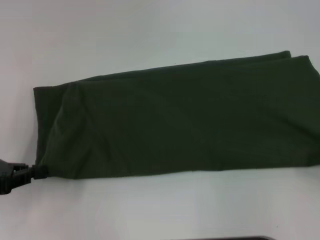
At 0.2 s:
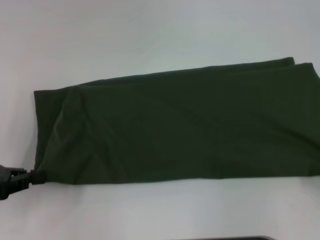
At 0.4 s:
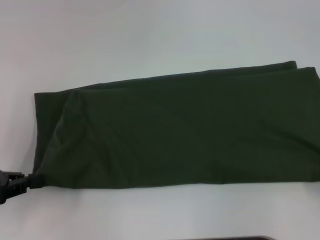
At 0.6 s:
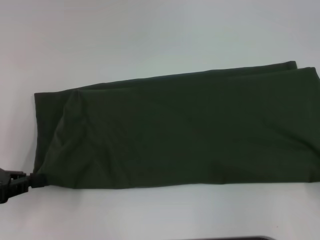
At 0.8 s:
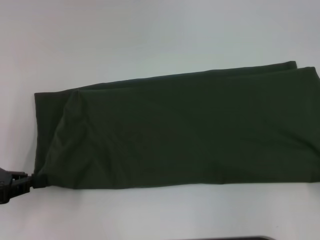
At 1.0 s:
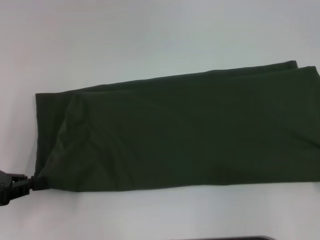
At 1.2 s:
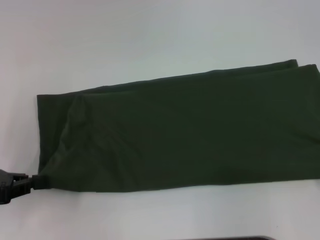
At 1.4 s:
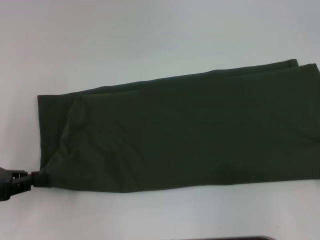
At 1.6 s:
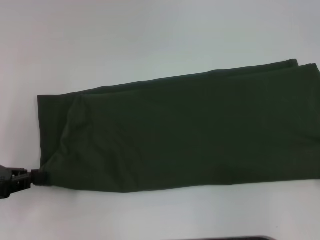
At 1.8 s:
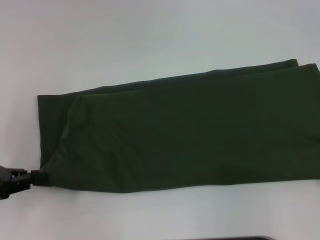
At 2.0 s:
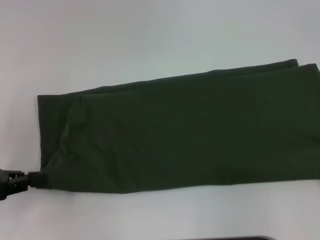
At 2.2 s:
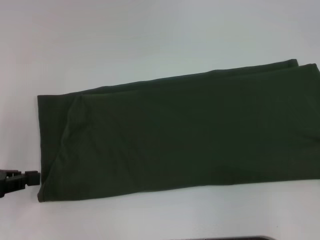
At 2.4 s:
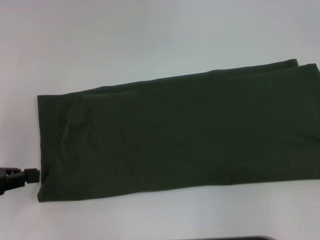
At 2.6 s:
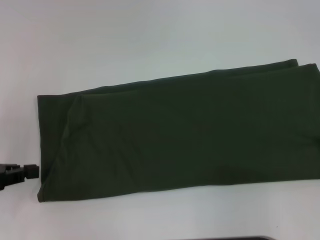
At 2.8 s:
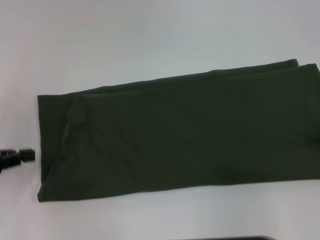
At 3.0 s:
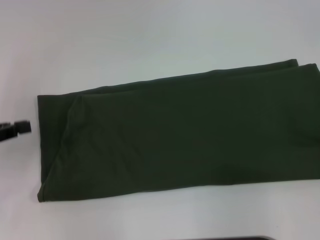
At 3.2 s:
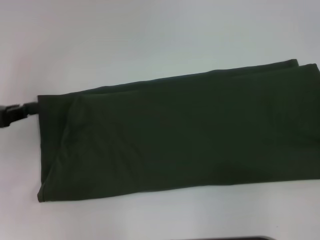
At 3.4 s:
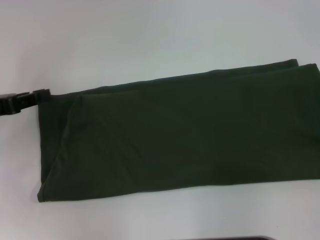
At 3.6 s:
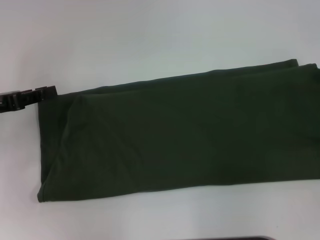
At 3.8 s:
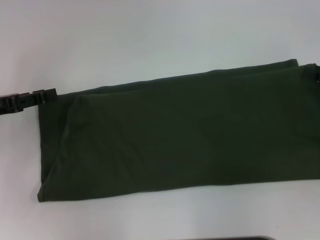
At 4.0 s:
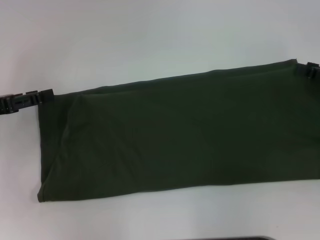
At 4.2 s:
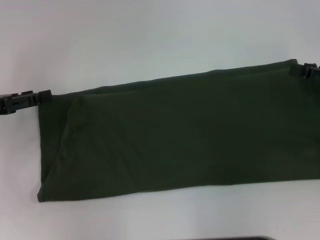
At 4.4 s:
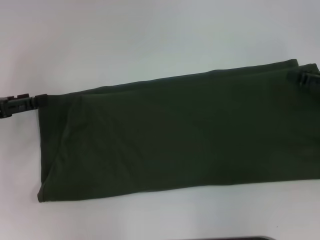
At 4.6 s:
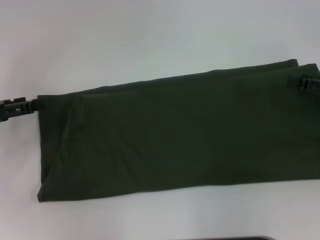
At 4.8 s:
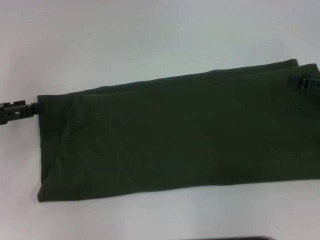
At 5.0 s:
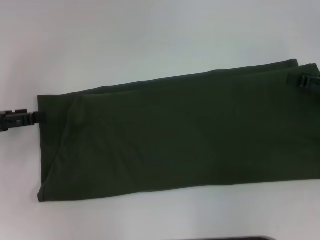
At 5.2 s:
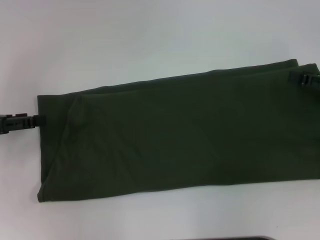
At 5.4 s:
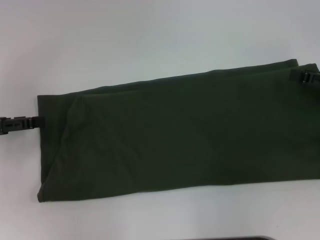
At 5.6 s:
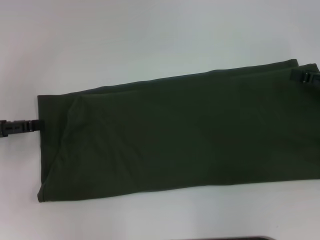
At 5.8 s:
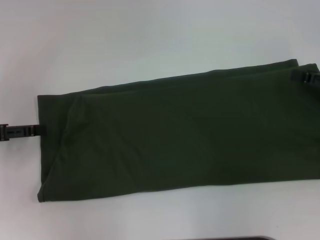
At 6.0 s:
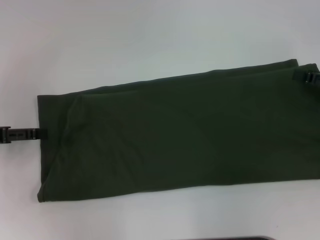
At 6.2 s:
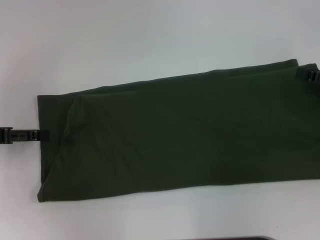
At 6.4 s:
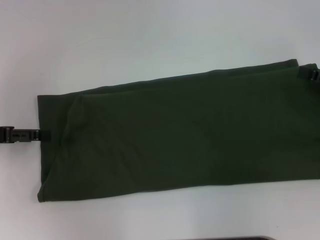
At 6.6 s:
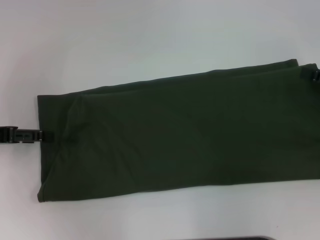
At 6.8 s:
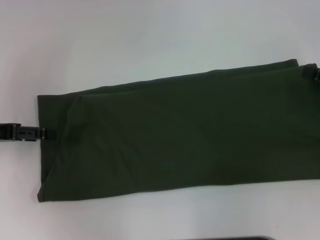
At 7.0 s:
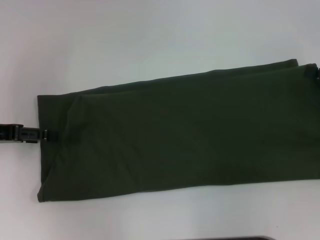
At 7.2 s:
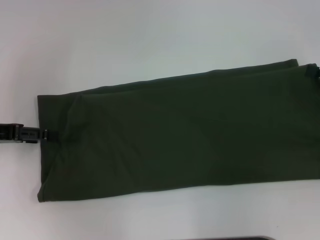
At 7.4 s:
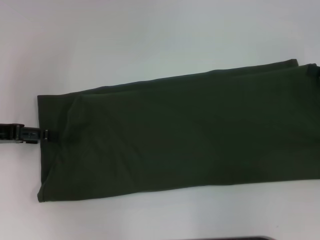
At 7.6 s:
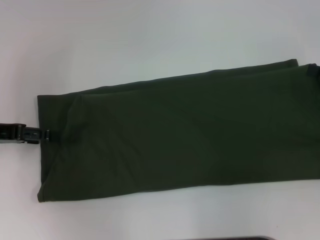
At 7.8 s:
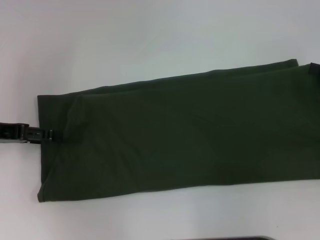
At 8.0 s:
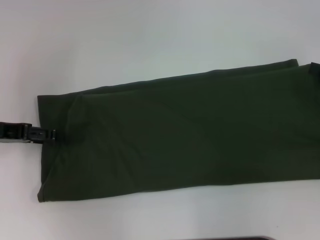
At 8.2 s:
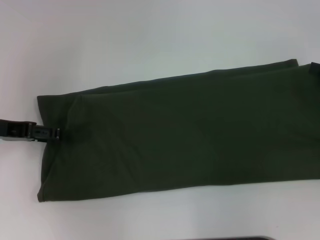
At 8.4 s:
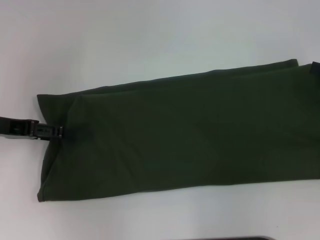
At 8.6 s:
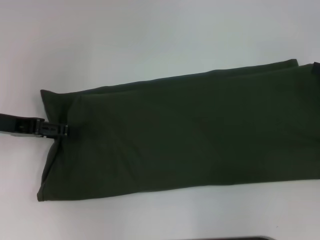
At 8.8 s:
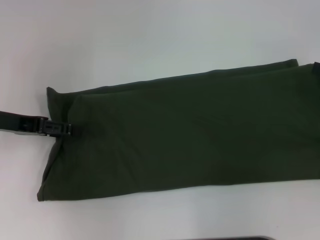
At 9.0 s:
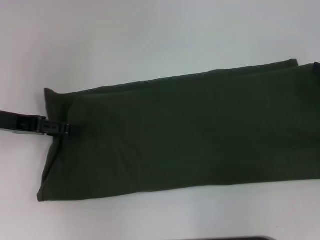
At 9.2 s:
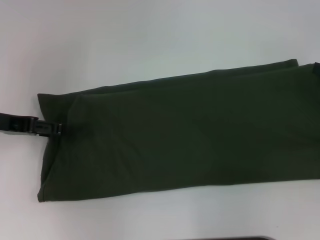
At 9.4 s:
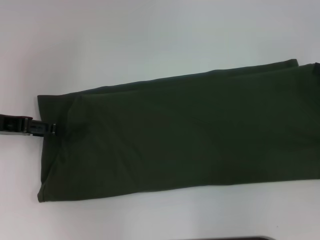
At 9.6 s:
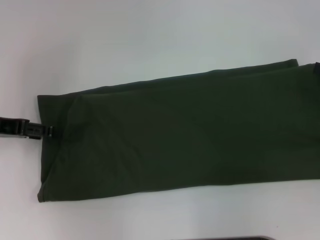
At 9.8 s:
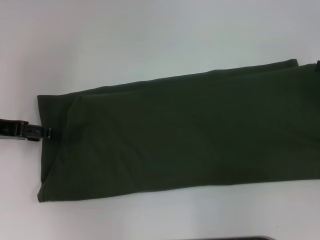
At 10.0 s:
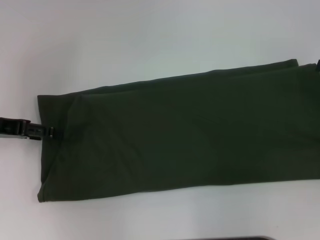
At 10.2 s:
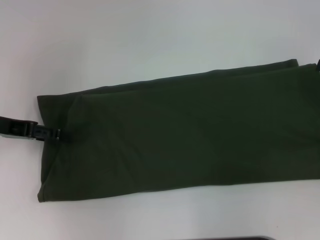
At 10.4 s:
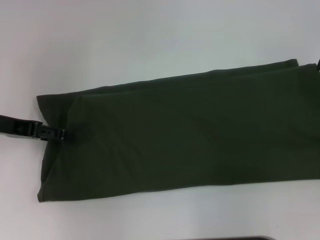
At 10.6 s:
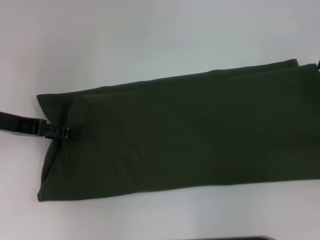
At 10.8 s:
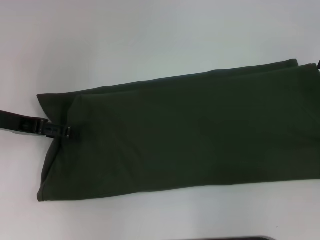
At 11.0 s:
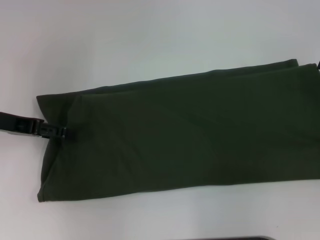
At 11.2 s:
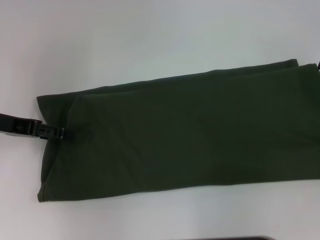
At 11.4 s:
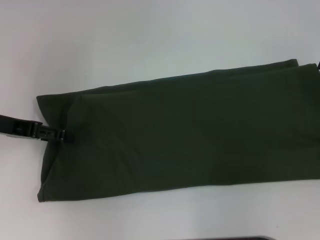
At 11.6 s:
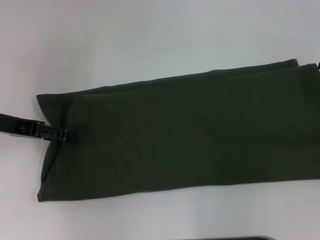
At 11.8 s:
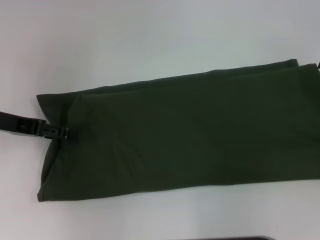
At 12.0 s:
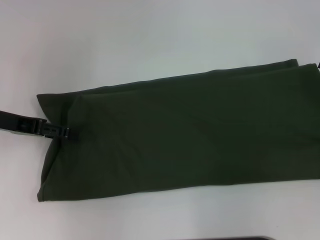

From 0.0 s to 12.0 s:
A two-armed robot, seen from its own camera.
Step, from 0.0 s to 3.2 s: Pull the clothes with your left hand.
Step, from 0.0 s to 3.2 s: Pull the clothes with your right hand.
From 0.0 s to 1.6 s: The grippers make only small movements.
From 3.0 s to 4.4 s: The left gripper opens.
From 4.4 s to 6.0 s: The grippers stay close to where they were, moving slightly.
From 7.6 s to 10.4 s: The grippers make only small movements.
From 10.4 s to 12.0 s: Both grippers stay about where they are.

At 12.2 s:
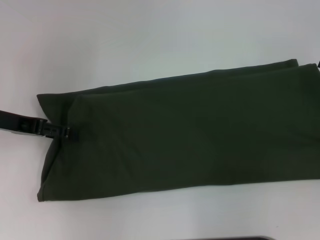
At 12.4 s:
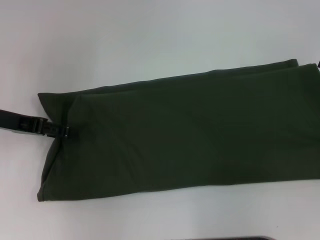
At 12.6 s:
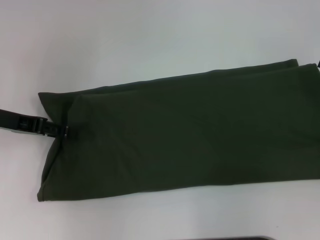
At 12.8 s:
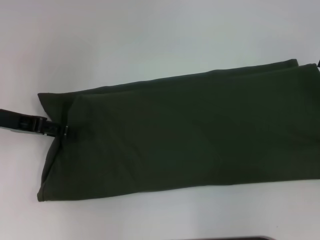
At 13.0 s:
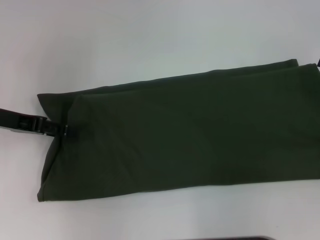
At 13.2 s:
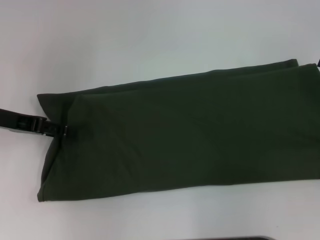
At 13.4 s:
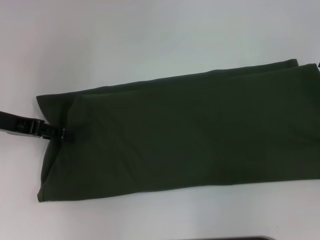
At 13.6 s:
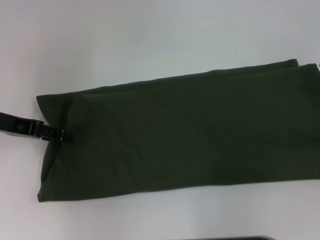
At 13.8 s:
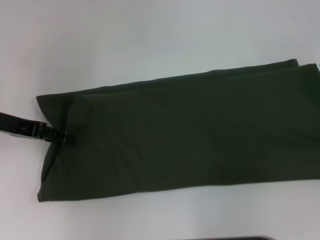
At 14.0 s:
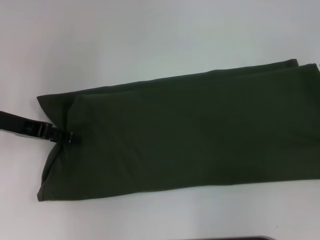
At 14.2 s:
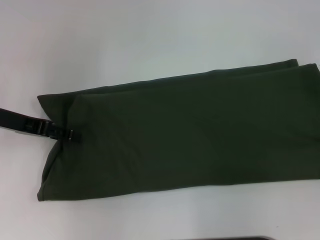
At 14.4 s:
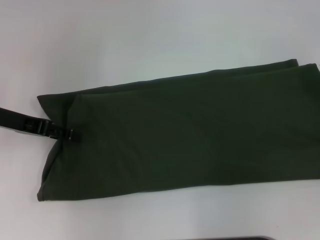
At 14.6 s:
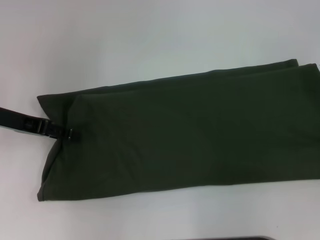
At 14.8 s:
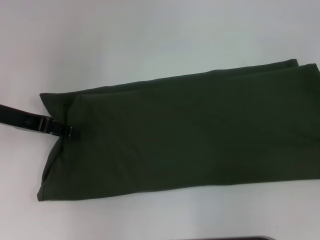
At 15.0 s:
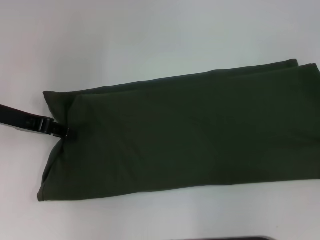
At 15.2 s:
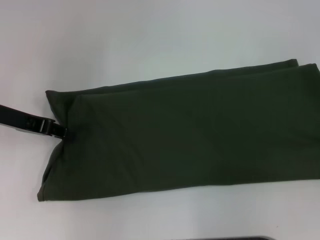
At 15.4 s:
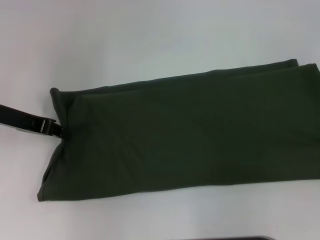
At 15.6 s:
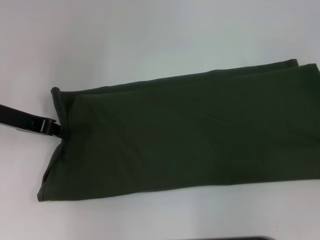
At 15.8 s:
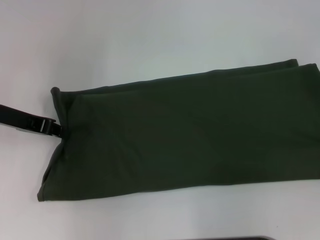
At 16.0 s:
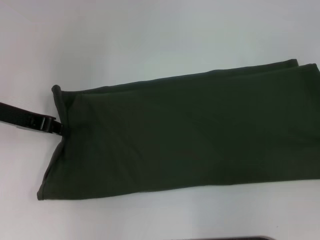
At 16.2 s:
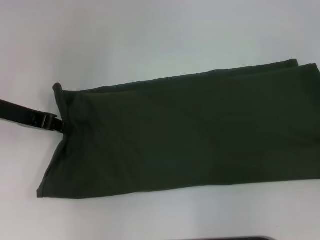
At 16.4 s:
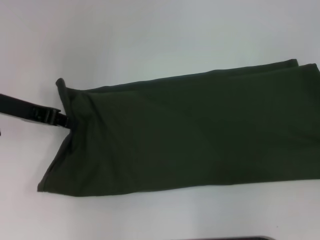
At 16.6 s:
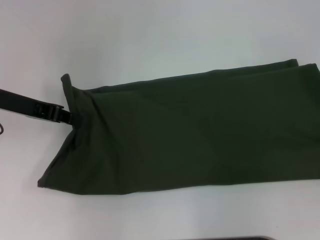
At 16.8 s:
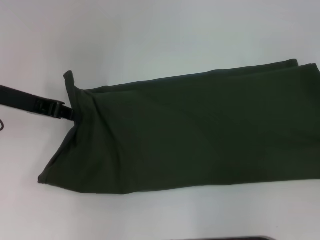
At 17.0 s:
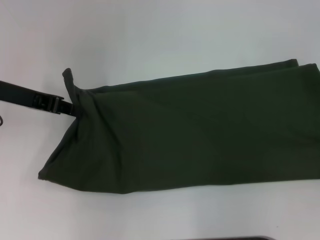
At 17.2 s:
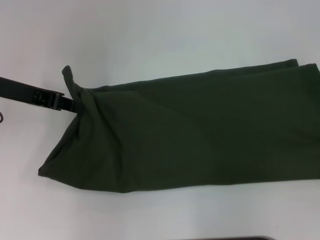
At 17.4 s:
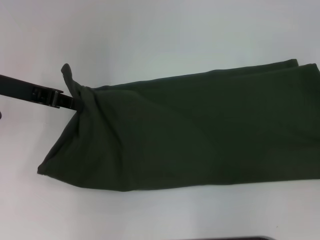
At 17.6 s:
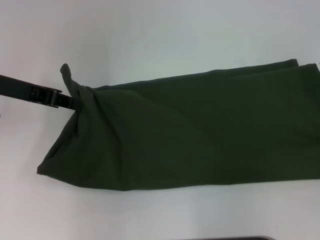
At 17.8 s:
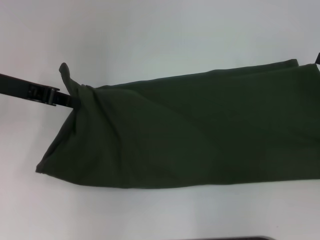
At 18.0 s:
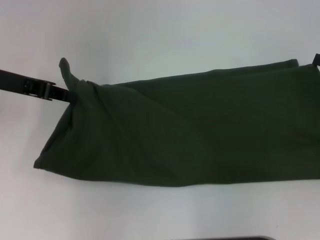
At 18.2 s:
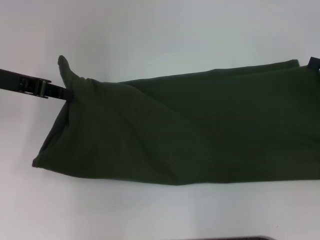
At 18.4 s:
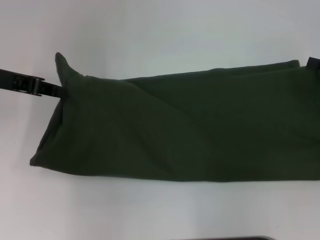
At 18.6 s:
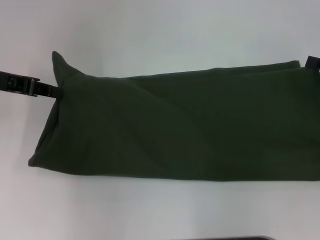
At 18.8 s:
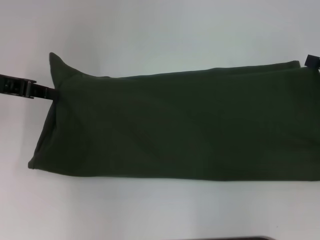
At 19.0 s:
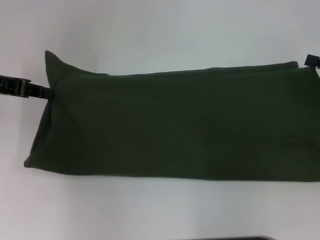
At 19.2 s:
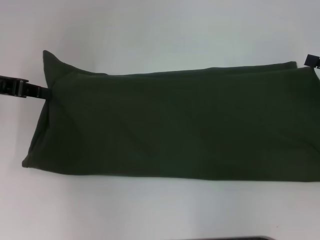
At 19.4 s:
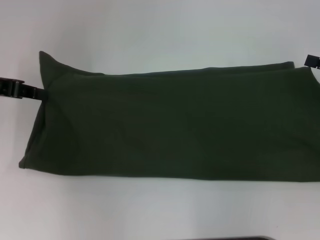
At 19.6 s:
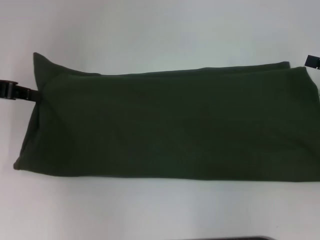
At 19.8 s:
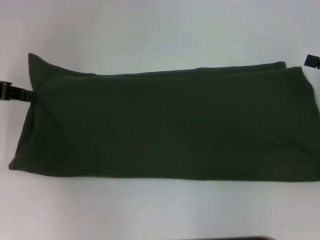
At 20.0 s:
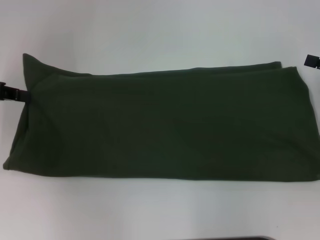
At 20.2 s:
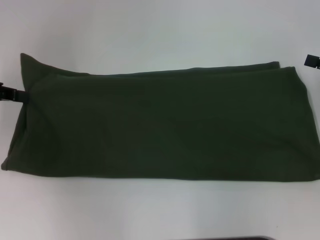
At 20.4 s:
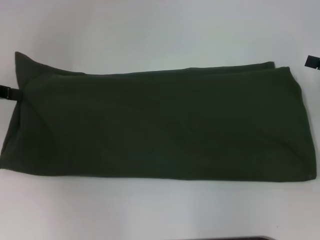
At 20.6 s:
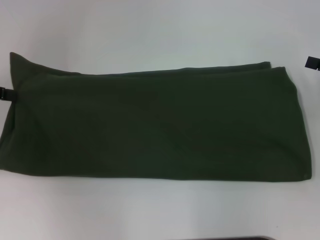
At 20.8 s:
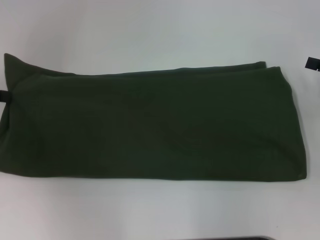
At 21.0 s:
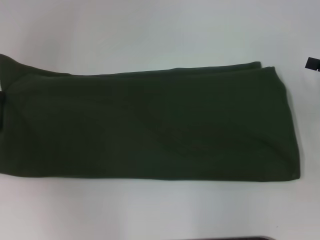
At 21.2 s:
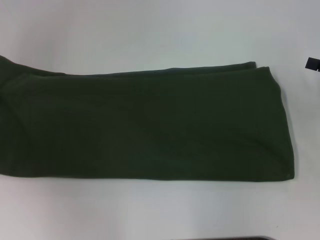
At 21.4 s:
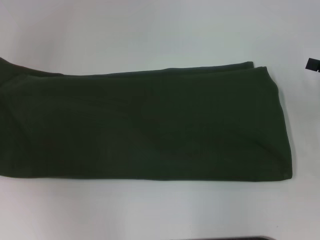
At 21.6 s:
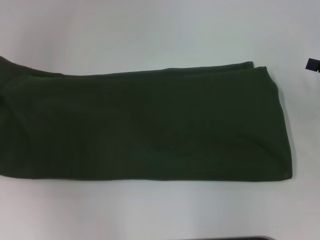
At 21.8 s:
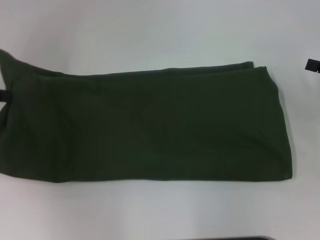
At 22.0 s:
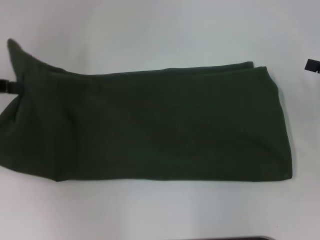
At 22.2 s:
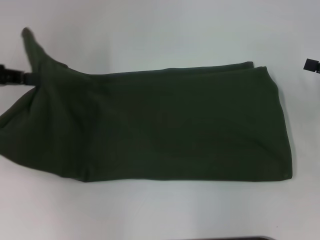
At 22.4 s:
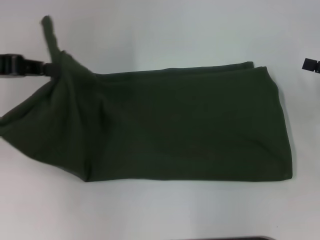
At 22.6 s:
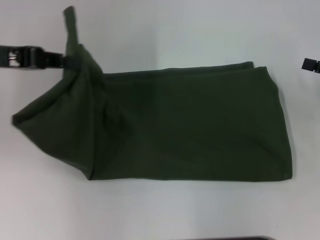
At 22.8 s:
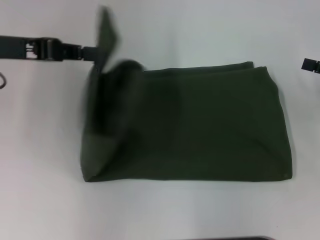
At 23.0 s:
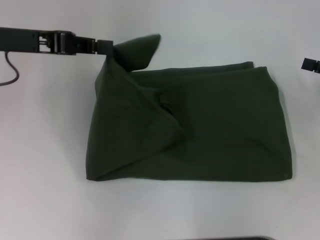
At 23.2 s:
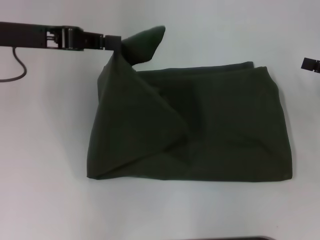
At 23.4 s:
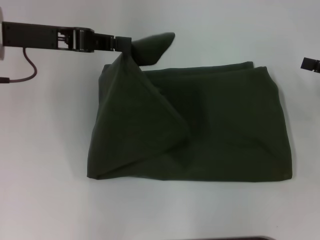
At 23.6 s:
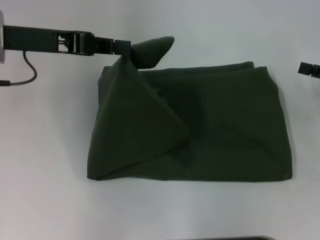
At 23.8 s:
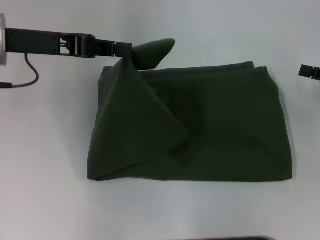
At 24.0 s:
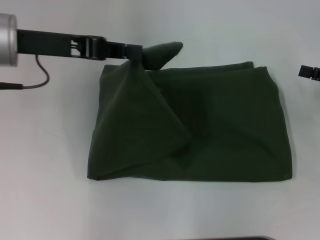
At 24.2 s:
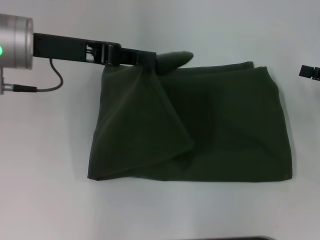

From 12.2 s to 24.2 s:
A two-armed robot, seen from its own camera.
From 12.2 s to 13.8 s: Neither gripper changes place.
From 13.8 s to 15.2 s: The grippers make only small movements.
From 15.2 s to 16.6 s: The left gripper closes up.
From 16.6 s to 18.2 s: The grippers make only small movements.
From 18.2 s to 19.8 s: The left gripper goes some 5 cm to the left.
From 19.8 s to 21.2 s: The left gripper changes place by roughly 5 cm.
From 21.2 s to 22.6 s: The left gripper travels to the right by roughly 10 cm.
From 22.6 s to 24.2 s: The left gripper heads to the right, covering roughly 10 cm.
